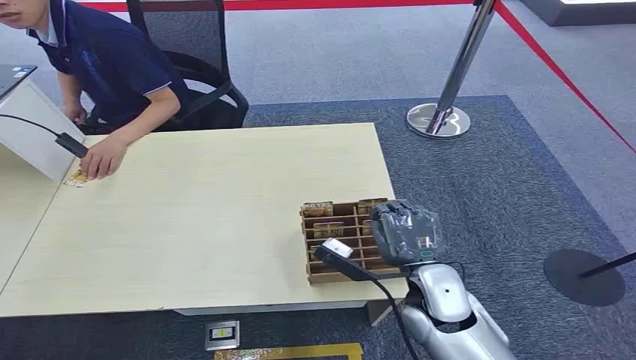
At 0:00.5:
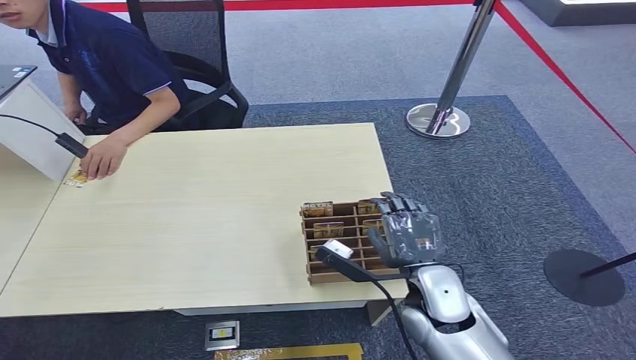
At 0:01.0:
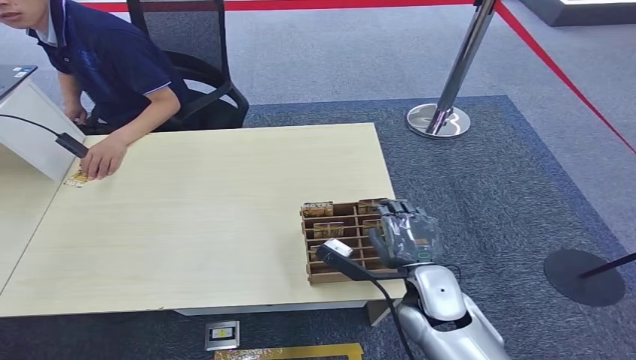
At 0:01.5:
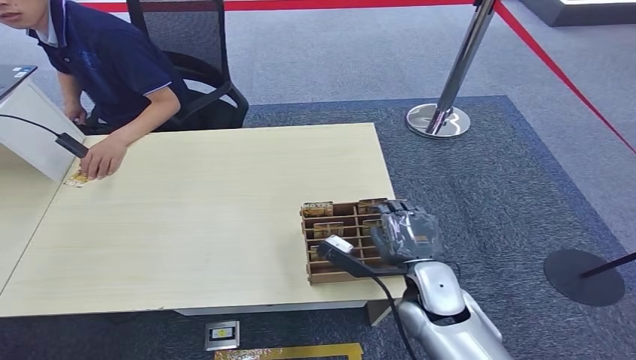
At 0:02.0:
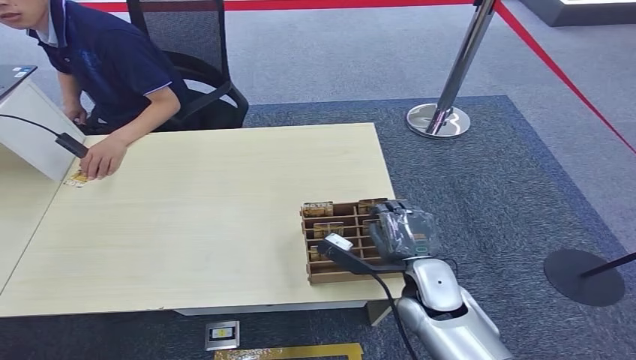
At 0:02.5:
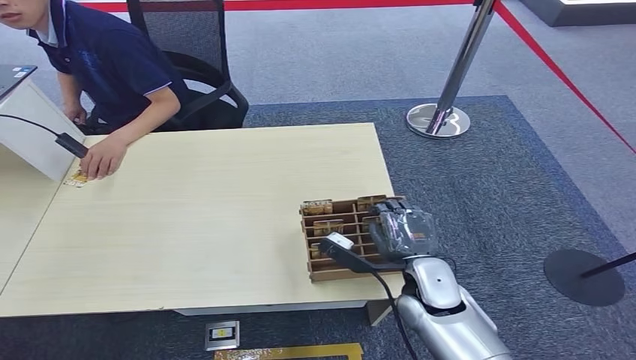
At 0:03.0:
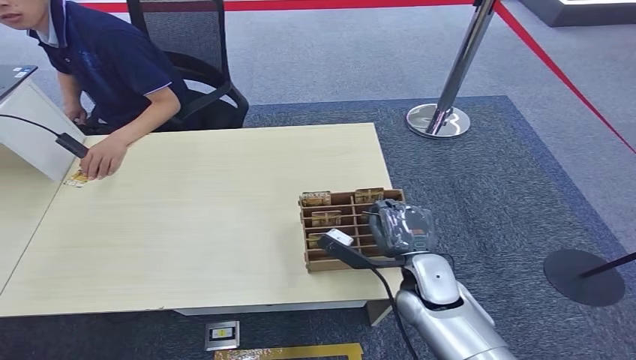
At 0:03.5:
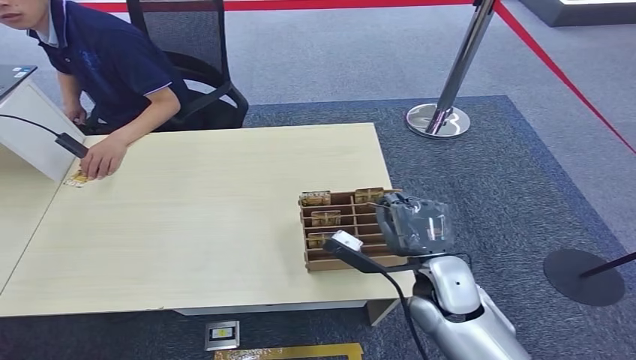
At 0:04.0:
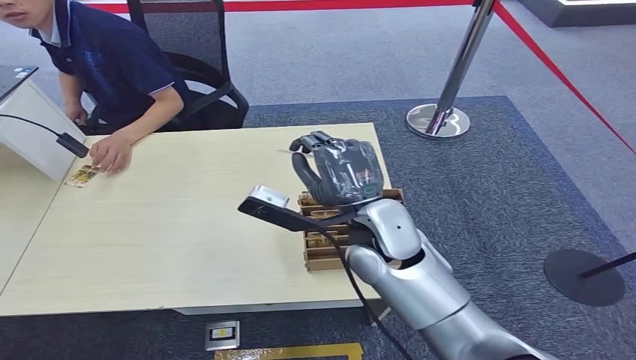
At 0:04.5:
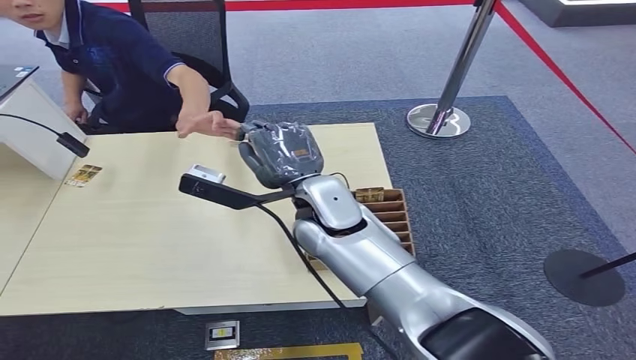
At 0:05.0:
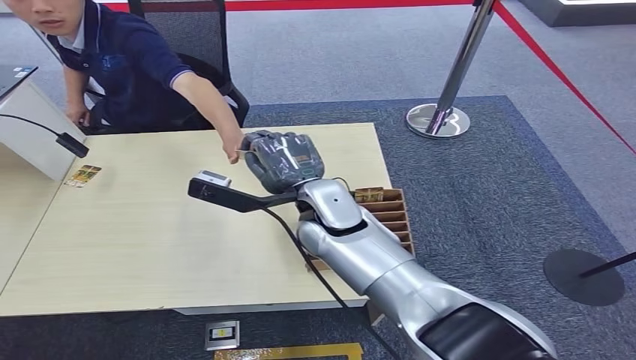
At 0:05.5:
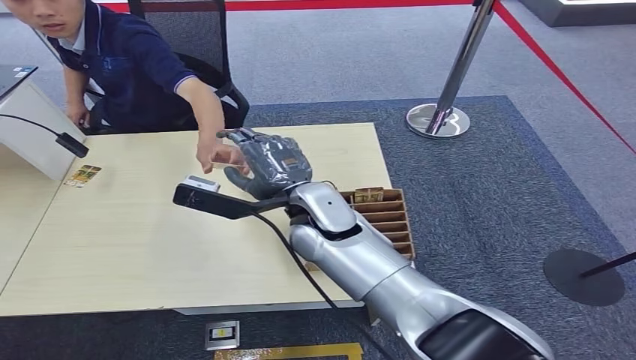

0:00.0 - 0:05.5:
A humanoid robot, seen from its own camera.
Step, 0:00.0 - 0:03.5: Pick up the key card from the card box.
Step, 0:04.0 - 0:05.5: Hand the key card to the target.
0:02.0 - 0:03.5: There are only small adjustments of the hands.
0:03.5 - 0:05.5: The right hand moves to the left, upward and forward, roughly 20 cm.

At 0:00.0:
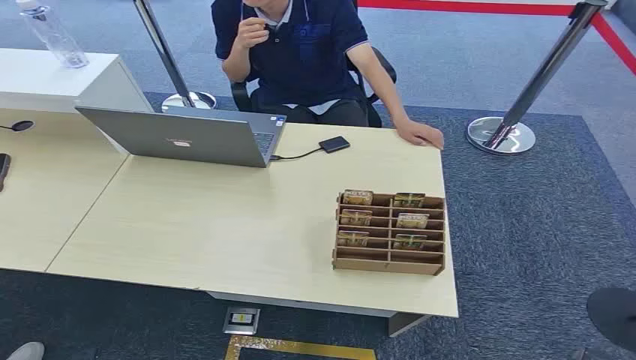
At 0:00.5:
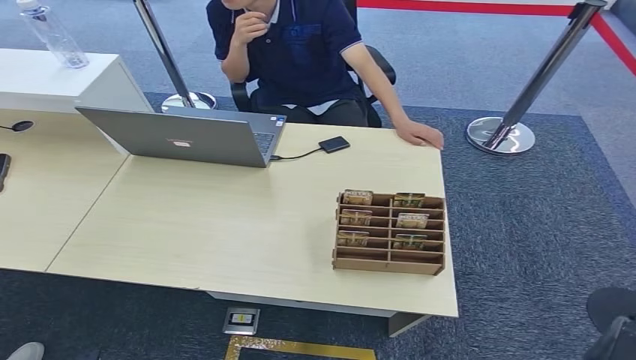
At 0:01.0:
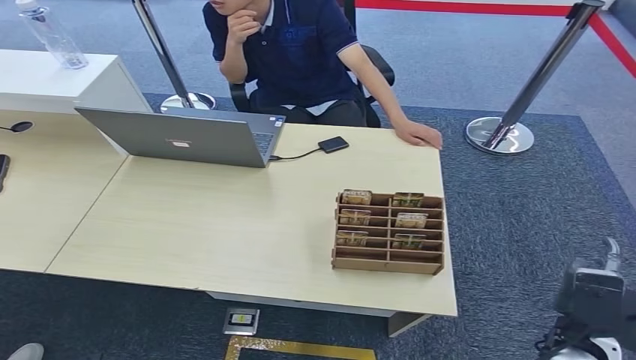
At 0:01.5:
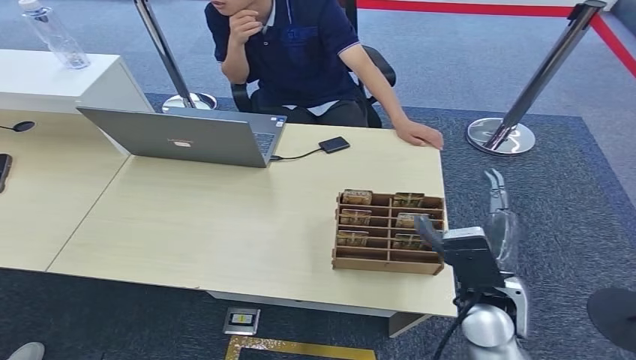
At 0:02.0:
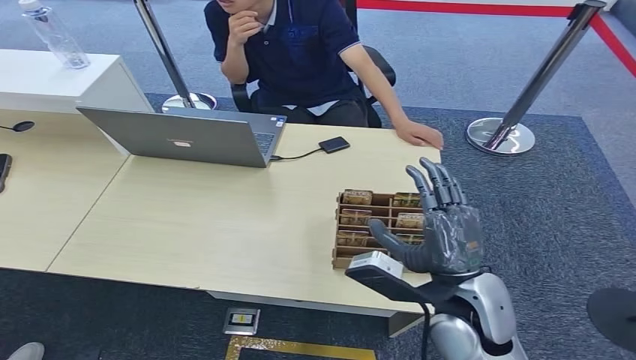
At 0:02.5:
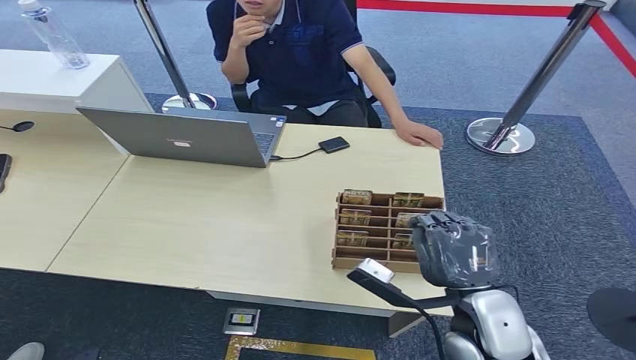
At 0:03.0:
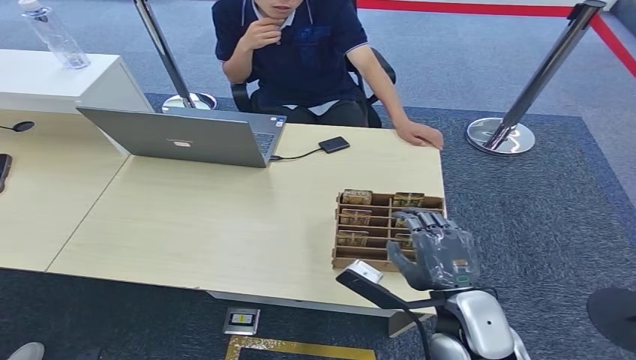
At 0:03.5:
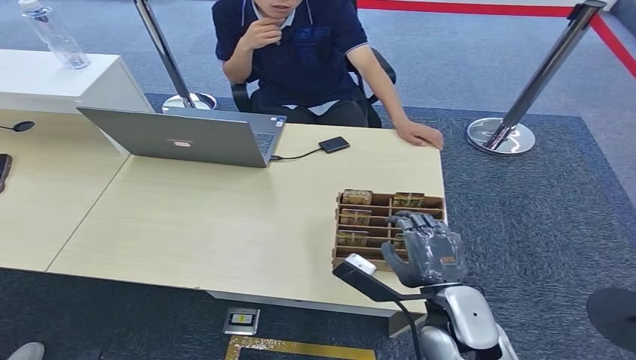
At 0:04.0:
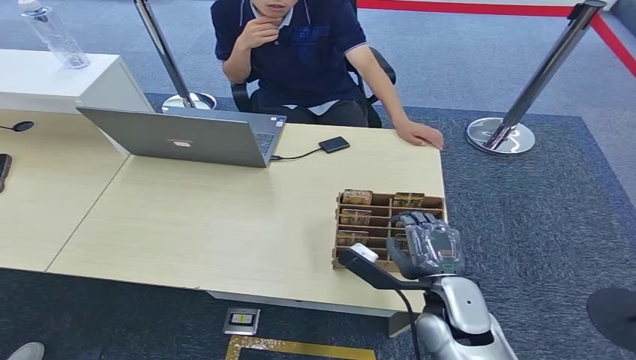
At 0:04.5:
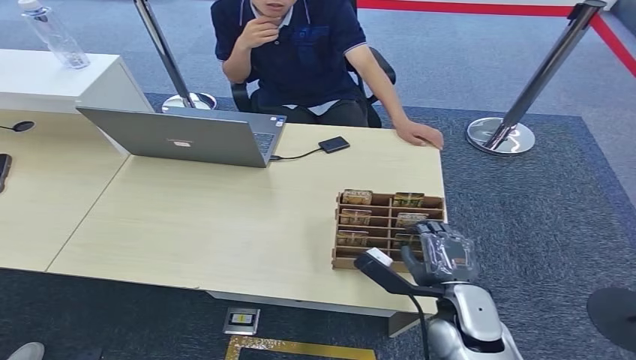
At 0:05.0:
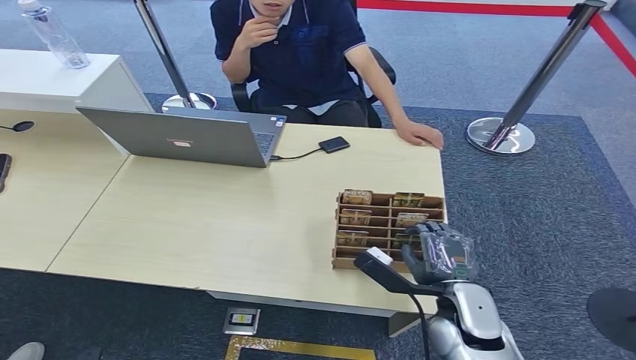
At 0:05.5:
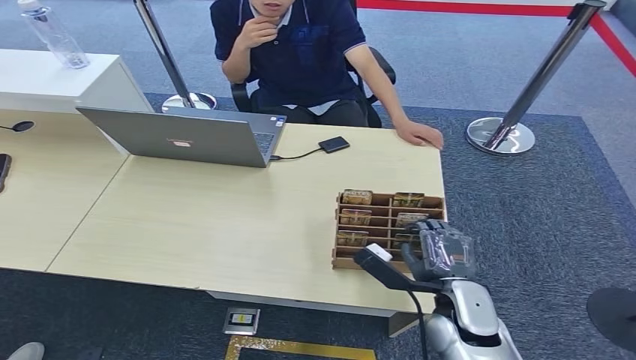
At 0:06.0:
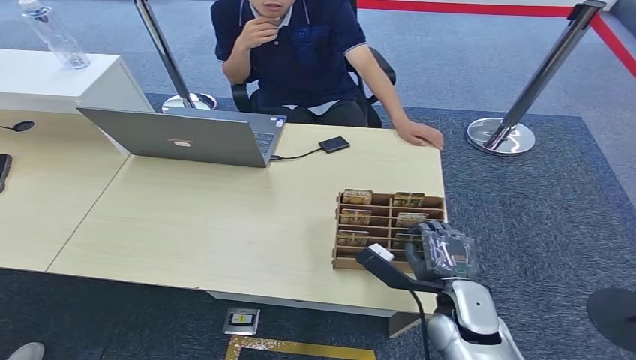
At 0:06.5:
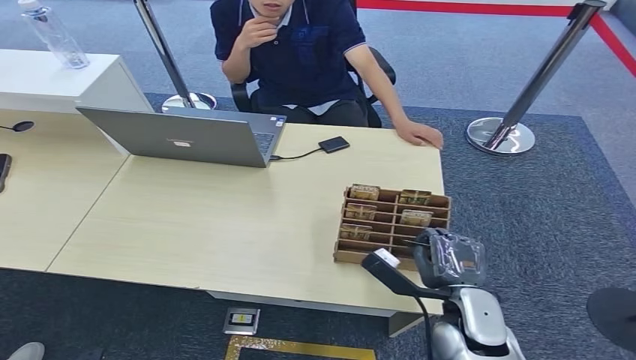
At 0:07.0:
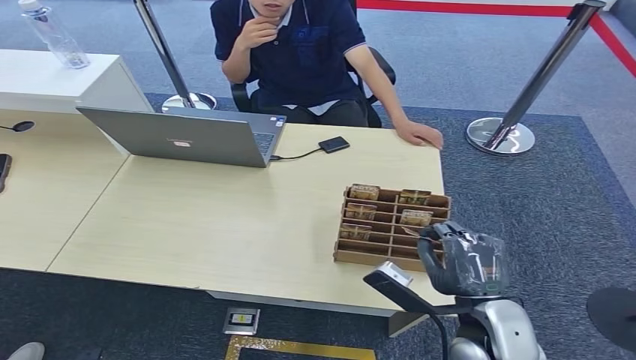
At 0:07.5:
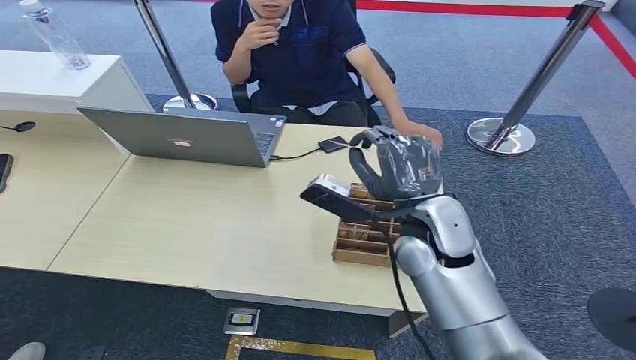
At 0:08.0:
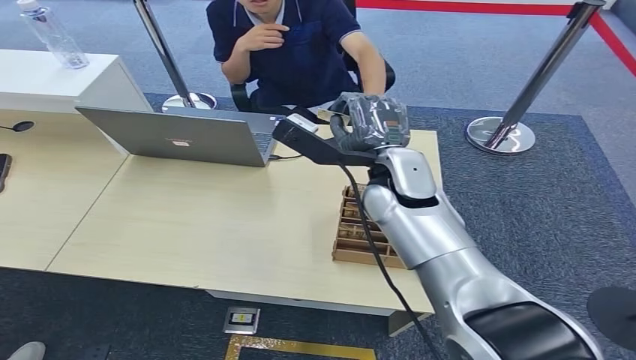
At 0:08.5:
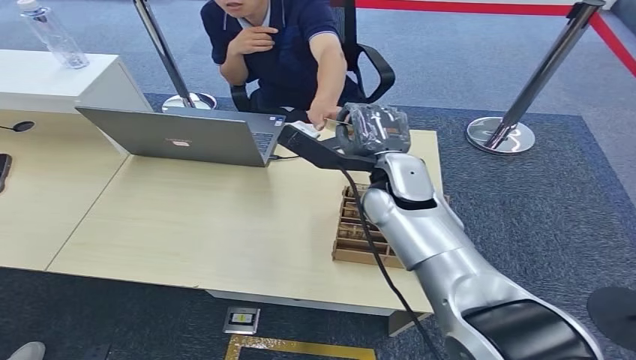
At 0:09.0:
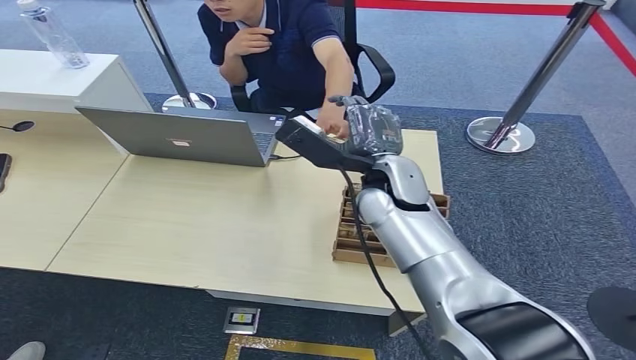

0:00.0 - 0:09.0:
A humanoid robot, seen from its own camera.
Step, 0:00.0 - 0:06.5: Pick up the key card from the card box.
Step, 0:07.0 - 0:09.0: Hand the key card to the target.
0:02.0 - 0:04.5: The right hand goes about 10 cm downward.
0:04.5 - 0:07.0: The right hand changes place by roughly 5 cm.
0:07.0 - 0:09.0: The right hand travels forward, upward and to the left by some 25 cm.

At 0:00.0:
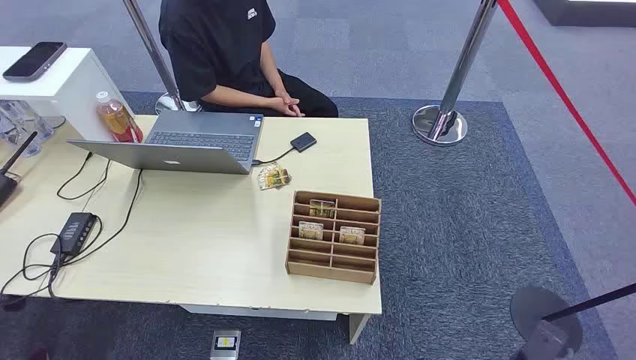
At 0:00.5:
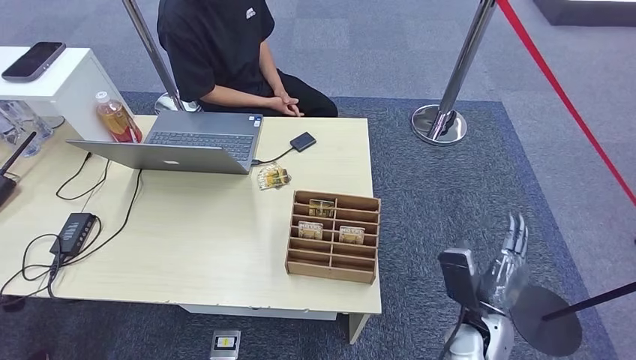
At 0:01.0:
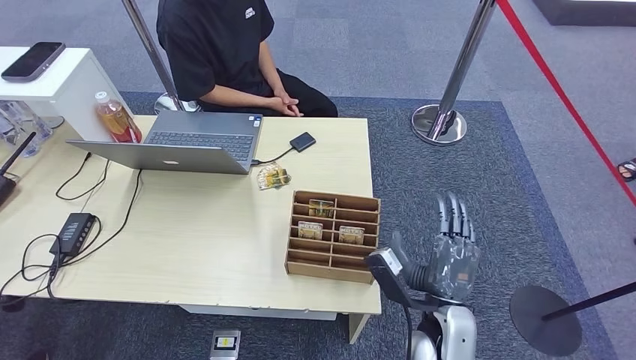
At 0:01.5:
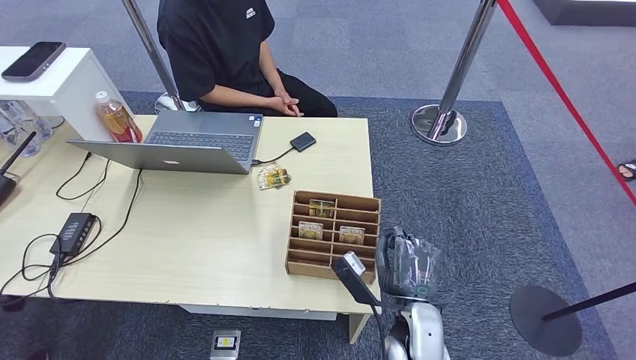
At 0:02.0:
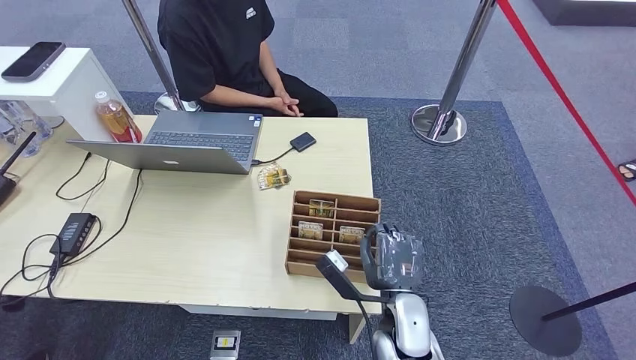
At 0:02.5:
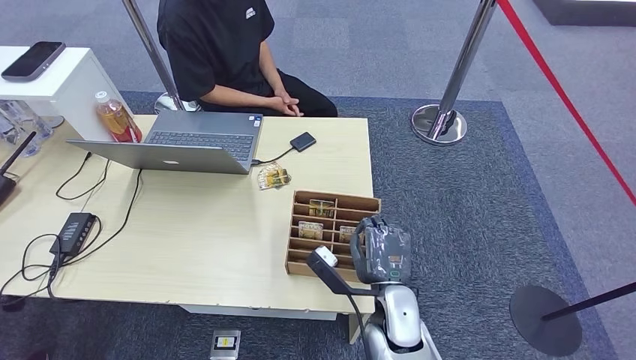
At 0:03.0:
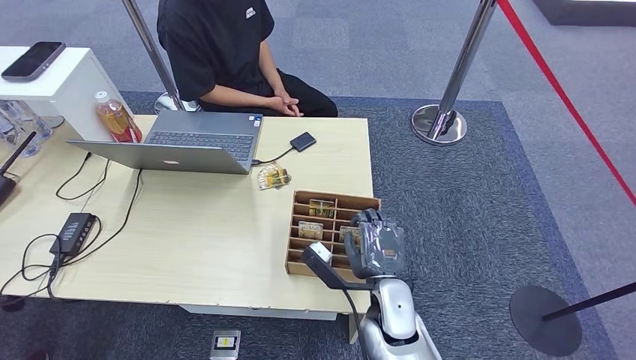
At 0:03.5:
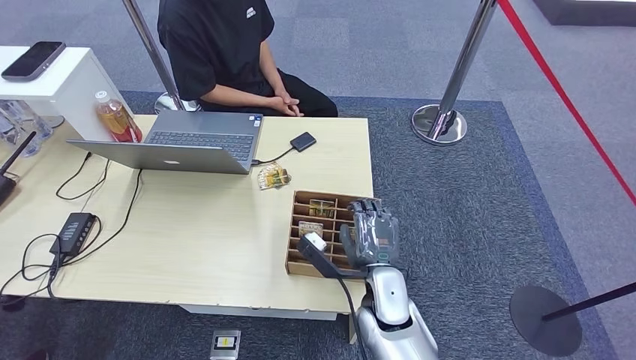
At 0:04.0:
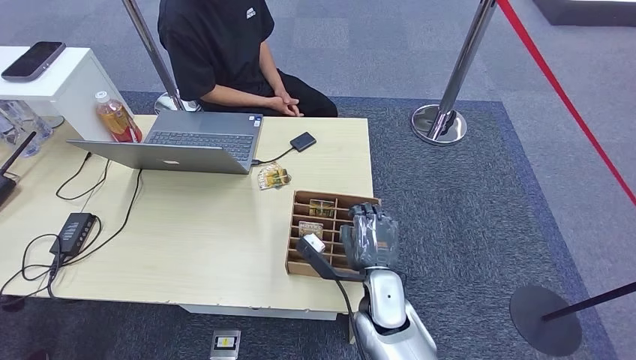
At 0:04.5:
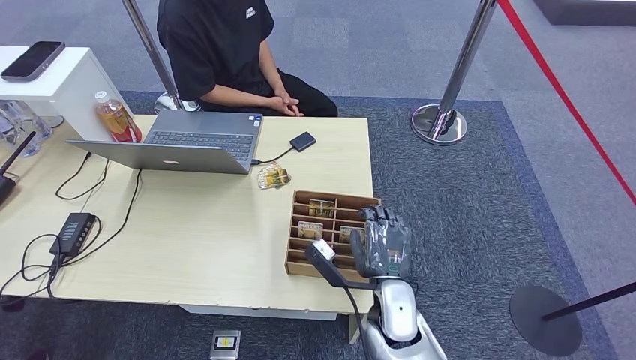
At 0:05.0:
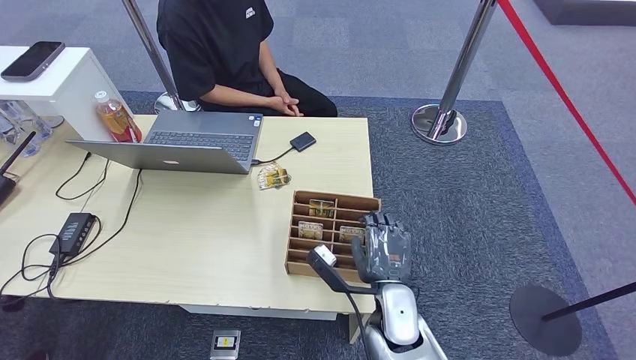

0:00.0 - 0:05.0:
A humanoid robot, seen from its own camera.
Step, 0:00.0 - 0:05.0: Pick up the key card from the card box.
0:02.5 - 0:05.0: The hands move only a little.
